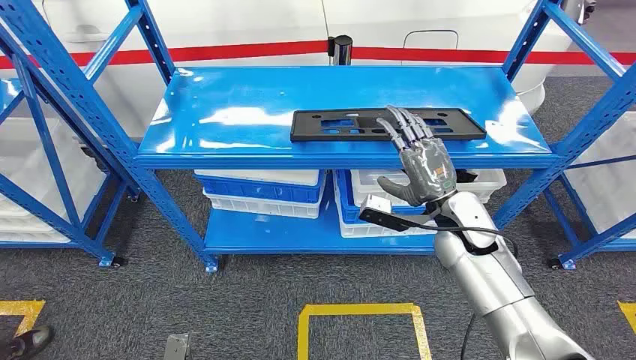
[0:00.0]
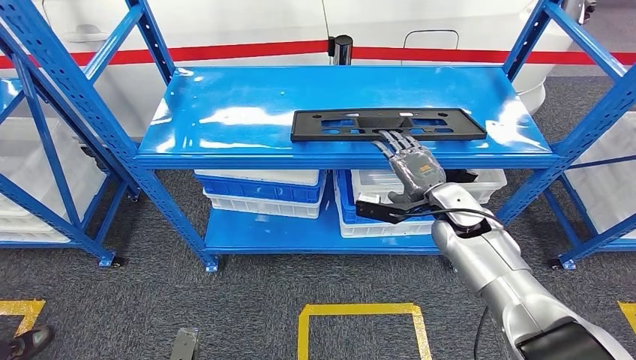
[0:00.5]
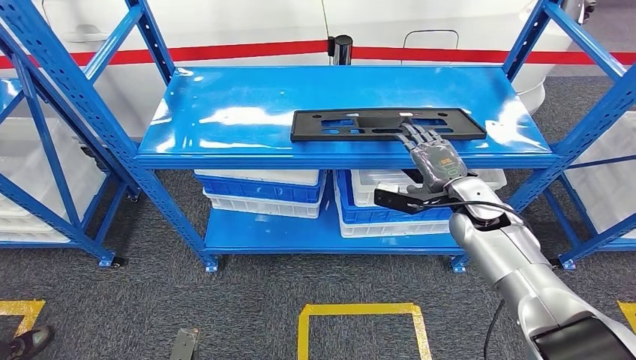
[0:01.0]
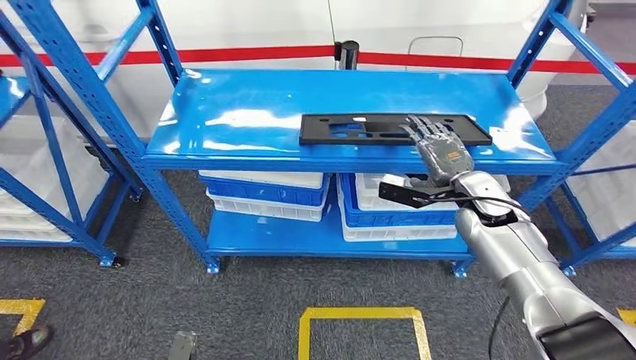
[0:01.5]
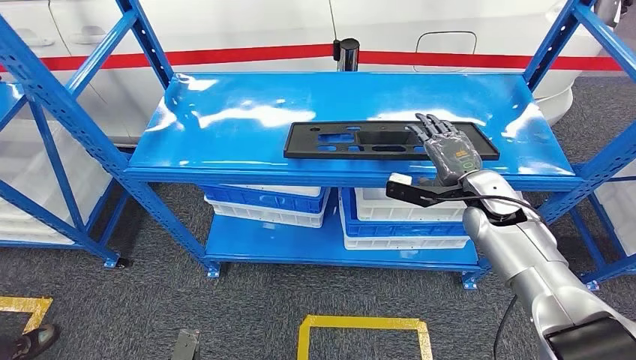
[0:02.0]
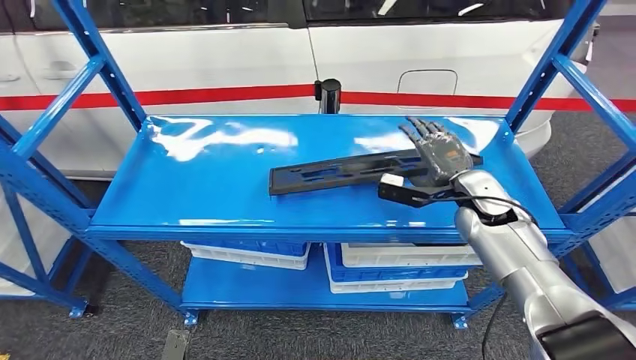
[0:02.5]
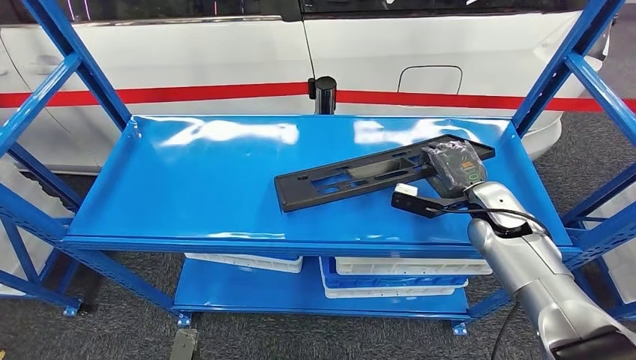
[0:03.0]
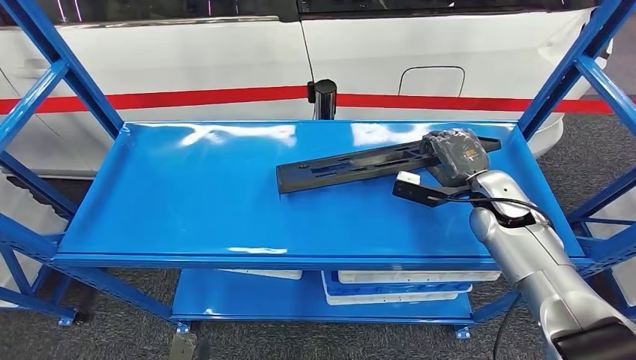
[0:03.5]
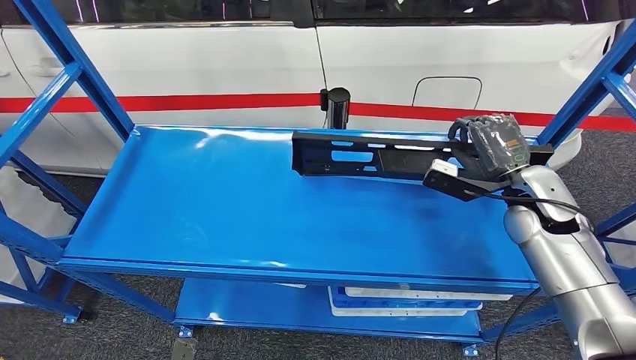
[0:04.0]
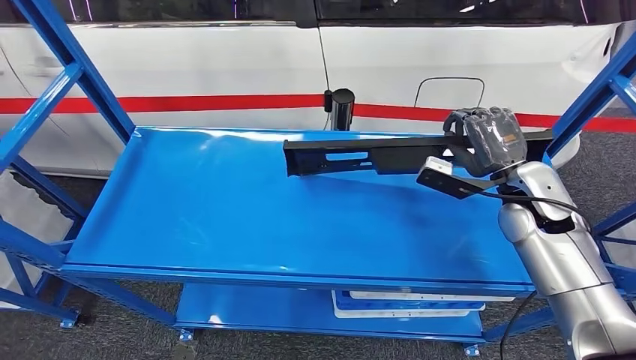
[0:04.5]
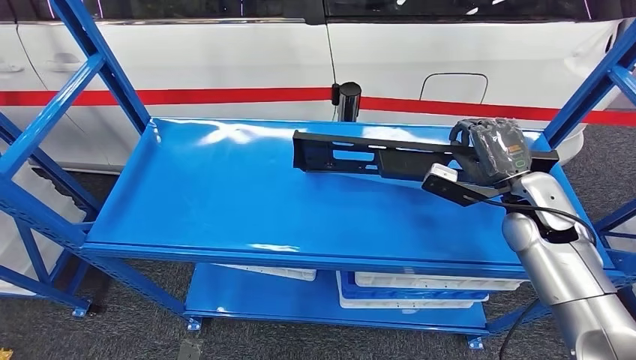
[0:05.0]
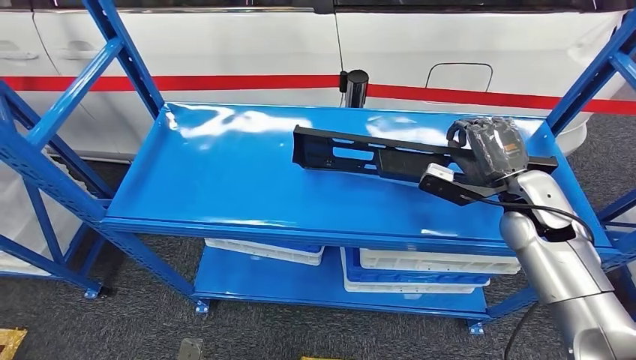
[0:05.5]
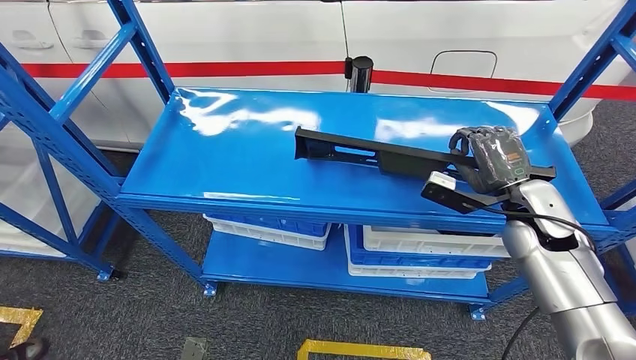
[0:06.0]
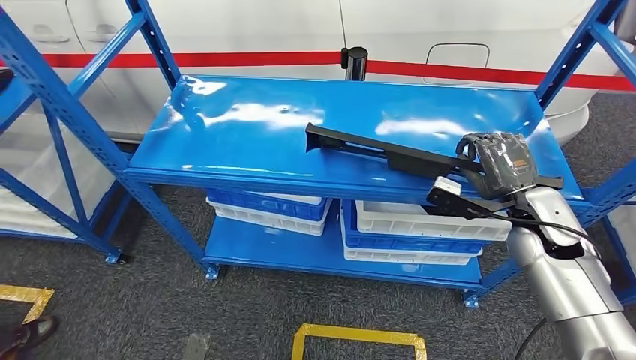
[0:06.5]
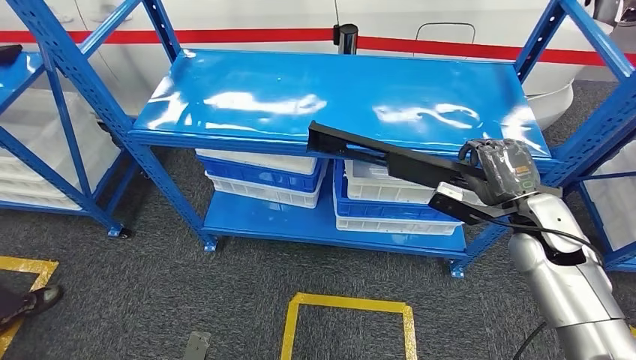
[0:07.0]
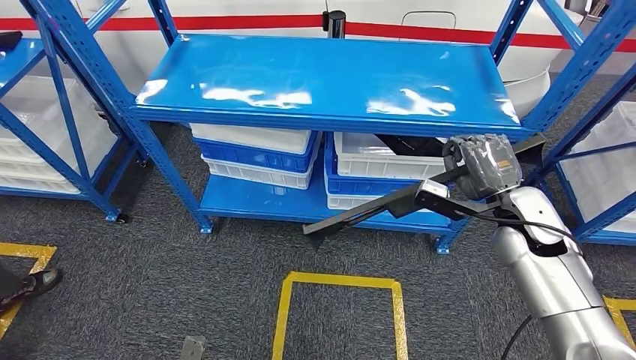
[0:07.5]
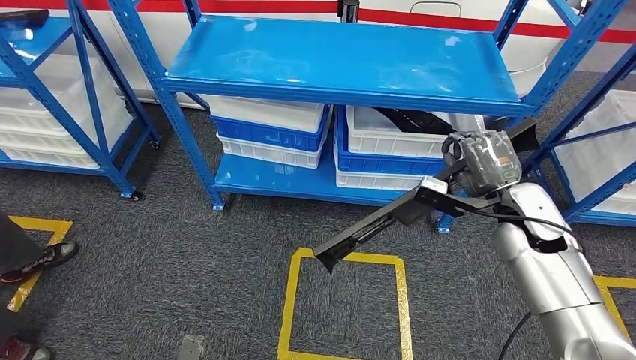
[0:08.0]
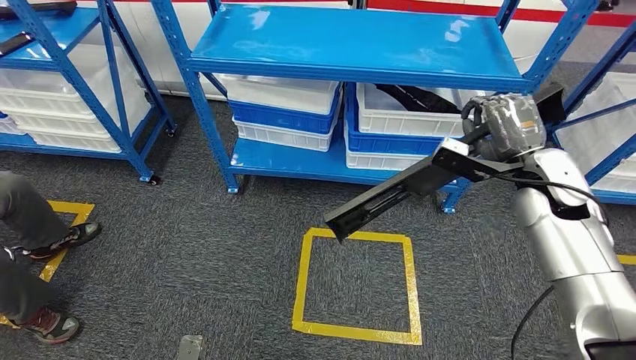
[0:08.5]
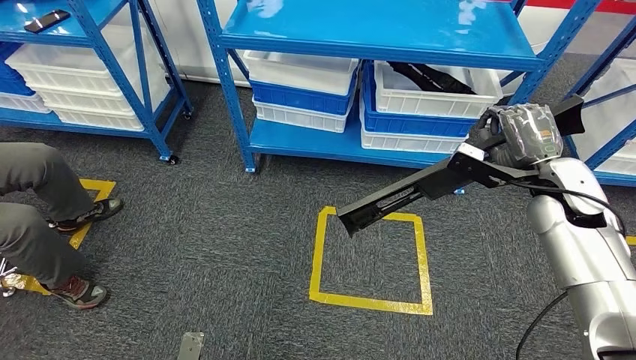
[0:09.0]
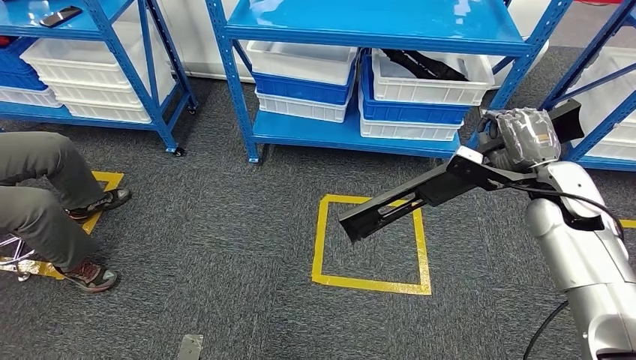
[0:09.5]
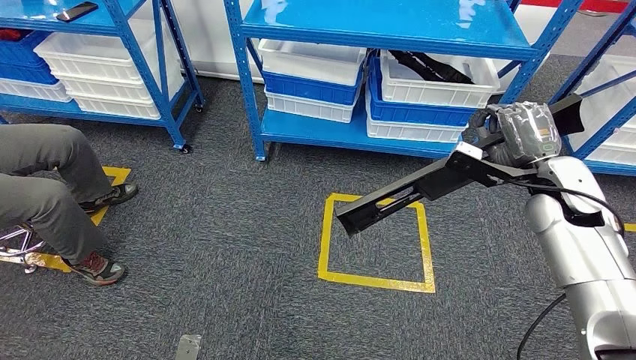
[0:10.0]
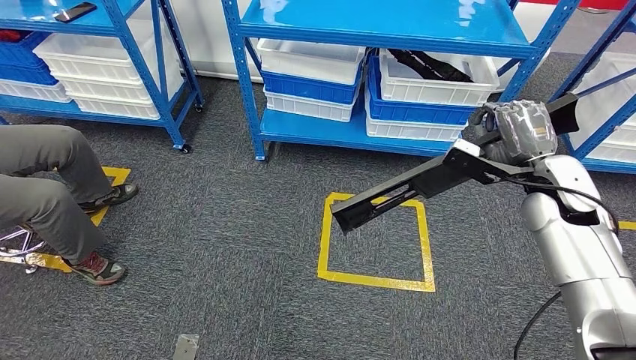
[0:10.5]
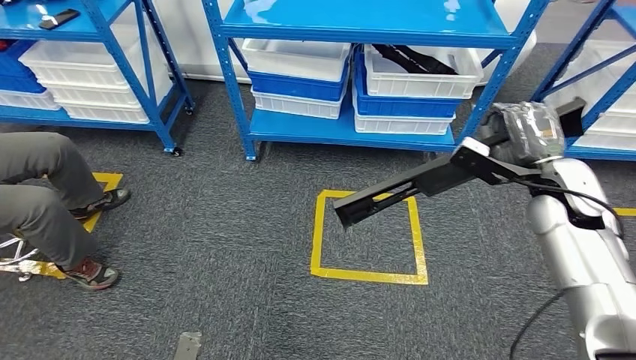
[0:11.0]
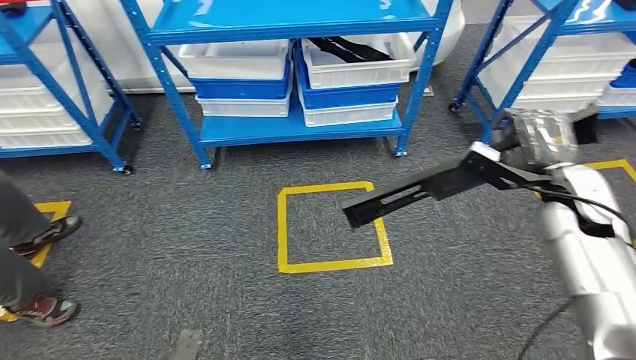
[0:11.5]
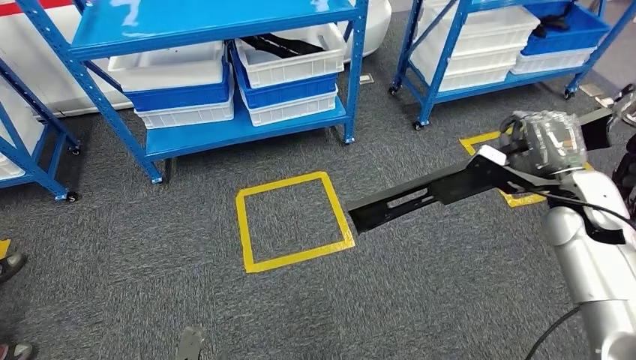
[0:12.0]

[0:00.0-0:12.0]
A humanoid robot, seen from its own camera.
Step, 0:00.0 to 0:07.5: Pick up the large material from the shelf.

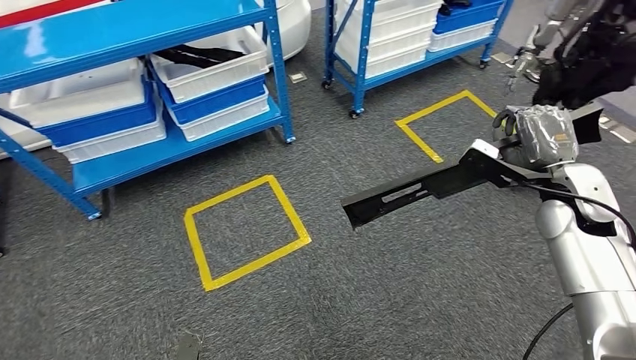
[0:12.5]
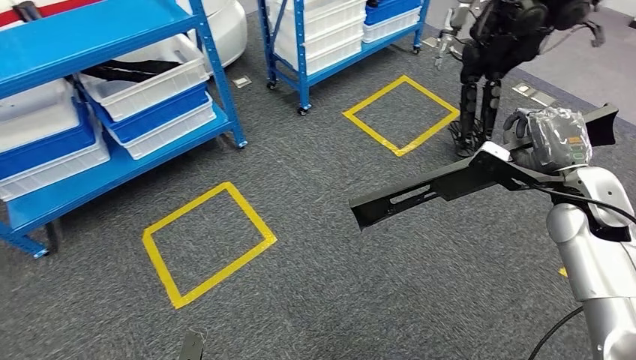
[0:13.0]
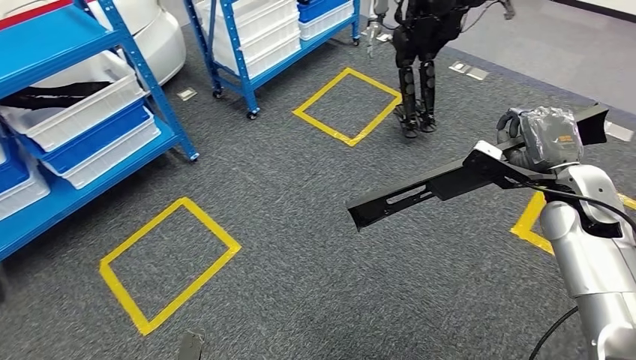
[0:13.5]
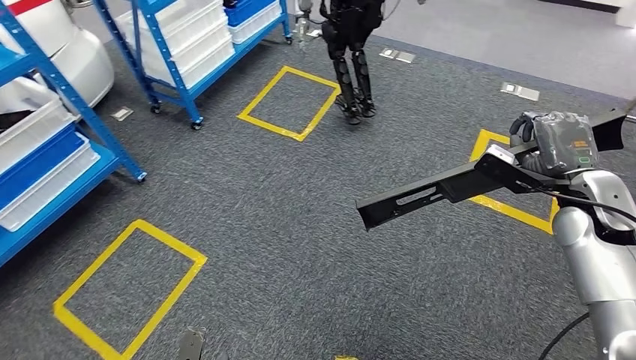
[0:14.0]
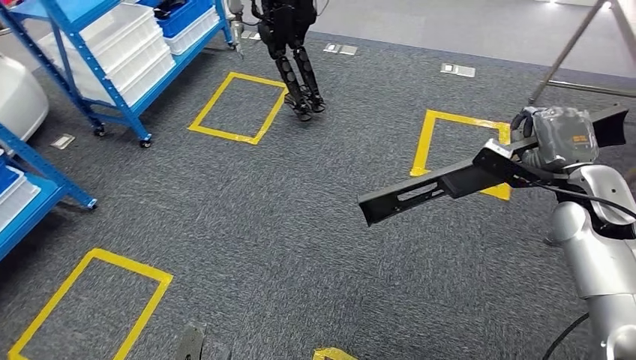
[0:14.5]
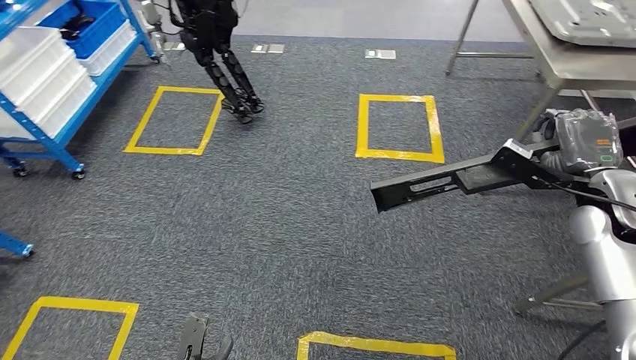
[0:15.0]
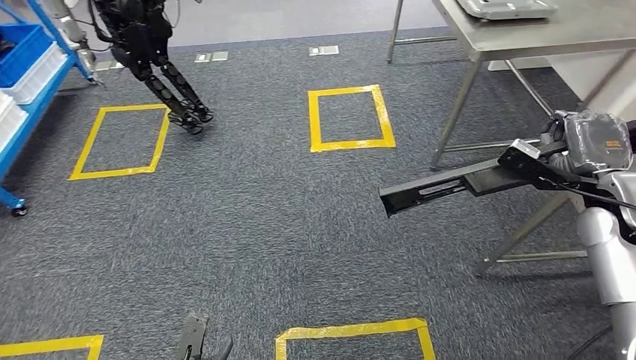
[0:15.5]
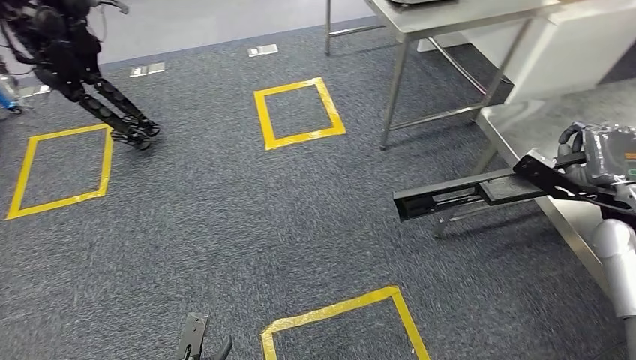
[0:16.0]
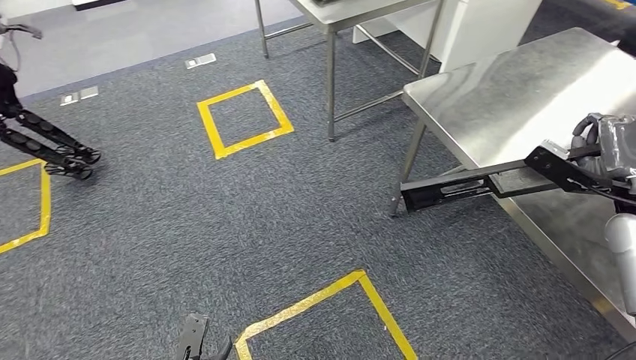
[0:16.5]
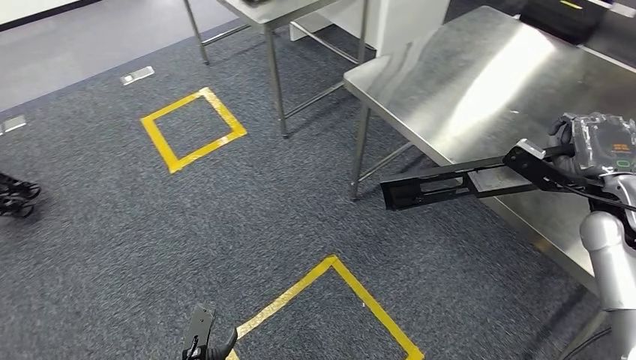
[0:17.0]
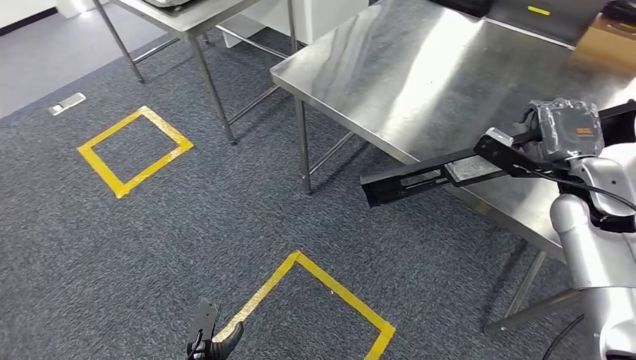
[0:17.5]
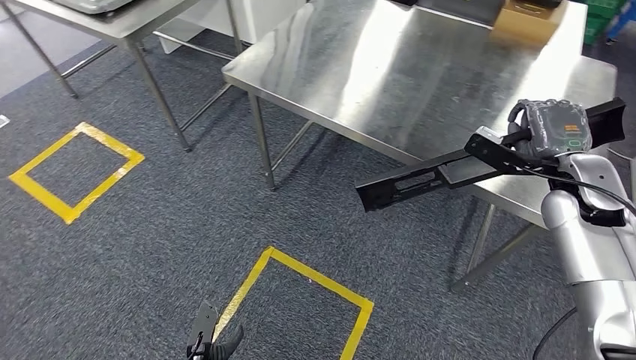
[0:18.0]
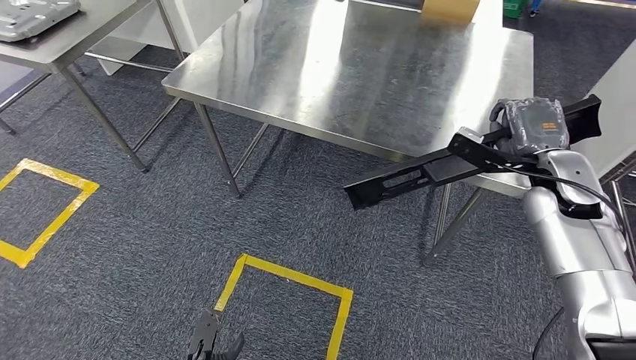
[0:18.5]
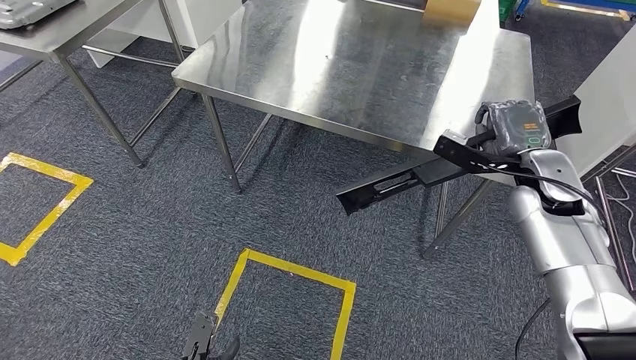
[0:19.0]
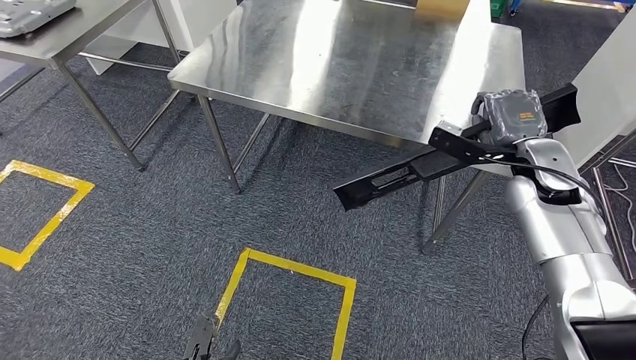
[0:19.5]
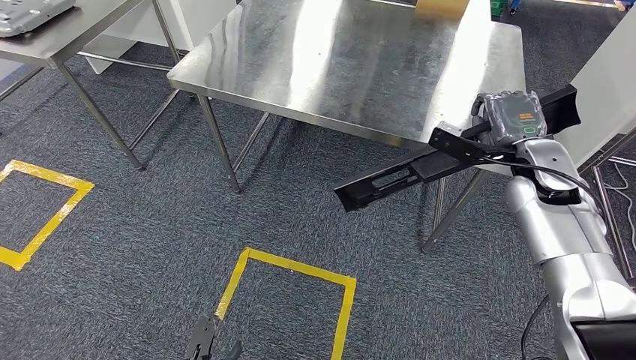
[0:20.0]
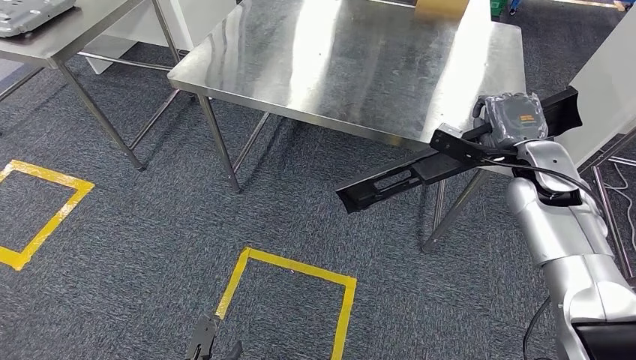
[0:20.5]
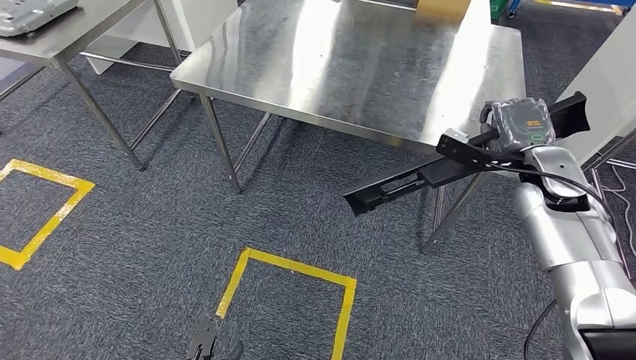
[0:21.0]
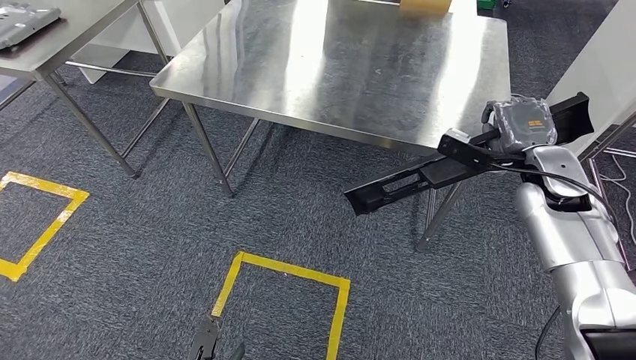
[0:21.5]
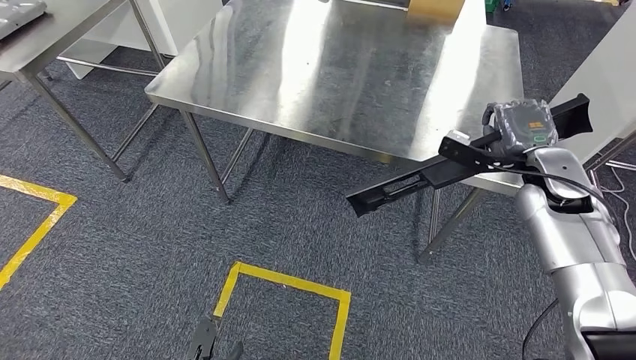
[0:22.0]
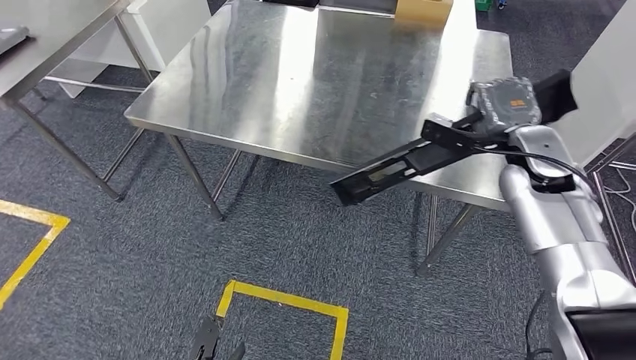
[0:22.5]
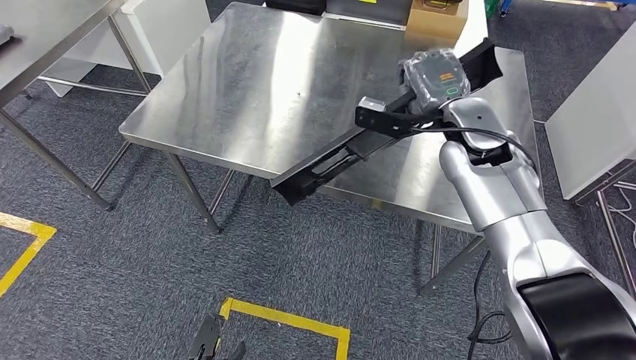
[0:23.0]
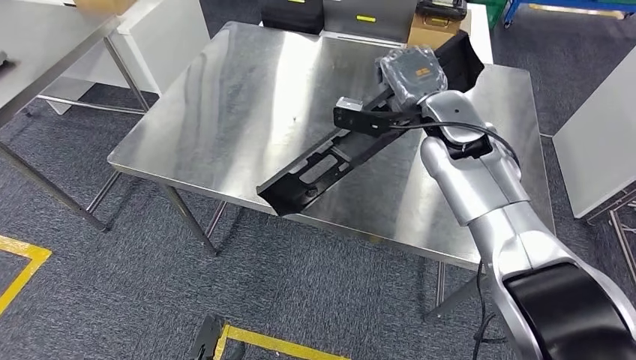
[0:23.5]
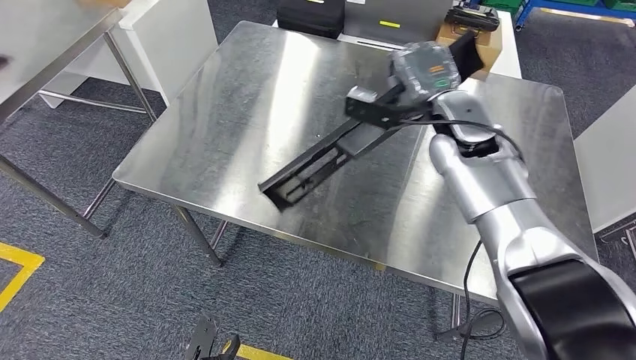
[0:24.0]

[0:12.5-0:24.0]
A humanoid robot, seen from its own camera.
Step, 0:12.5 to 0:20.0: Move the large material to the workbench.
